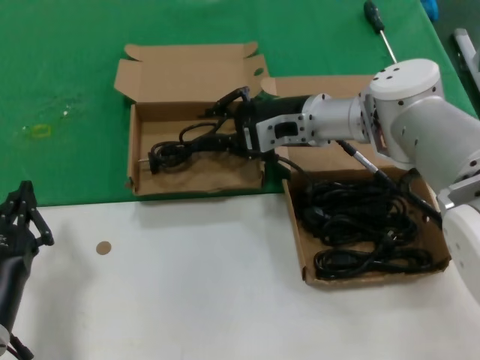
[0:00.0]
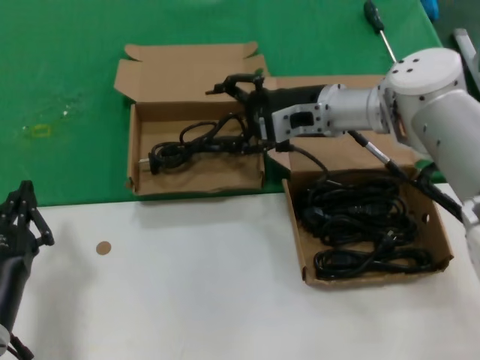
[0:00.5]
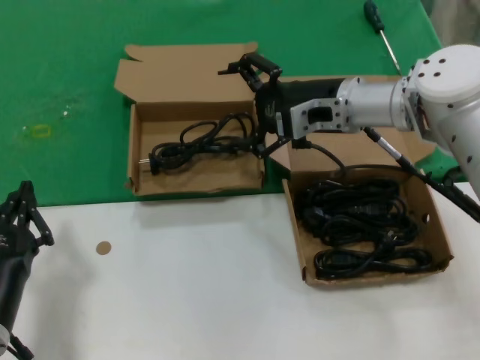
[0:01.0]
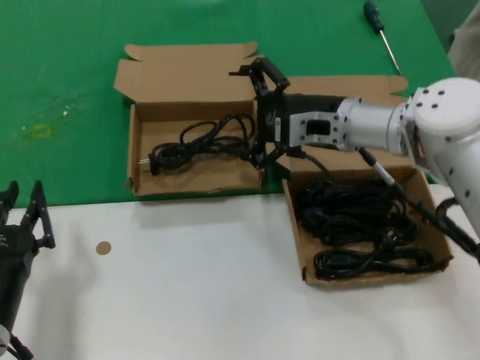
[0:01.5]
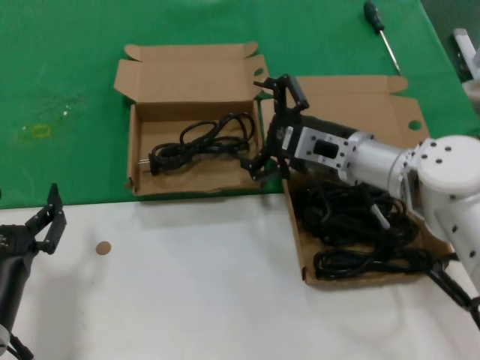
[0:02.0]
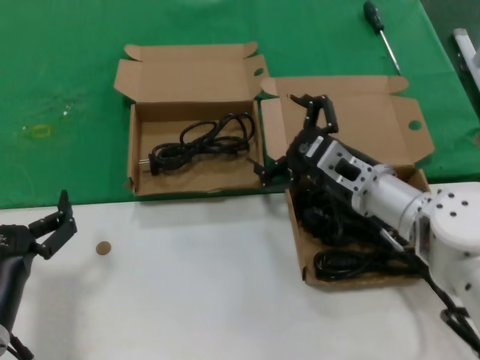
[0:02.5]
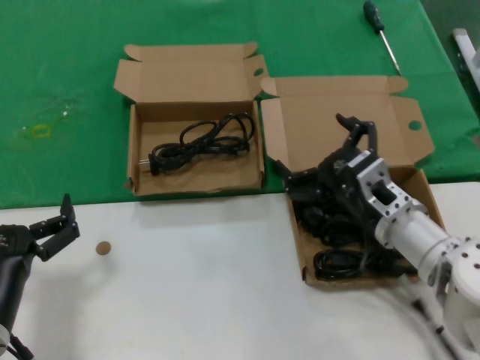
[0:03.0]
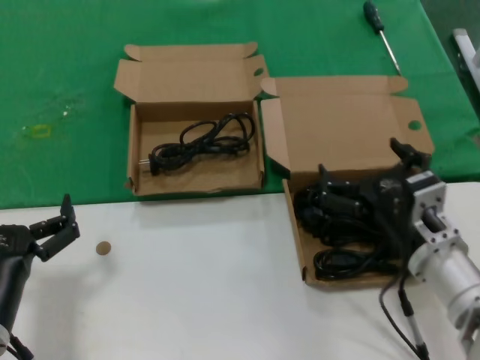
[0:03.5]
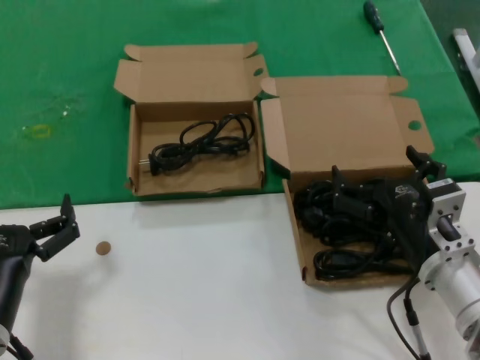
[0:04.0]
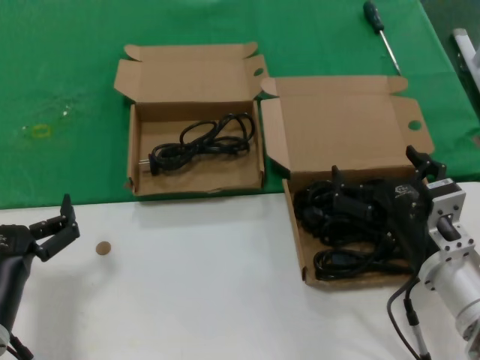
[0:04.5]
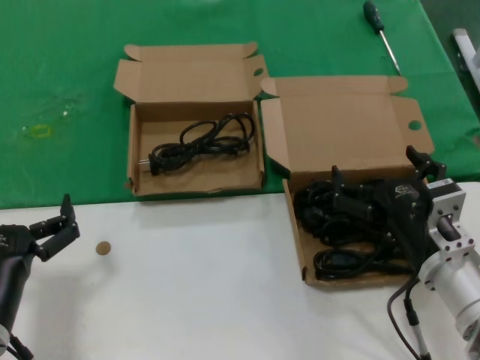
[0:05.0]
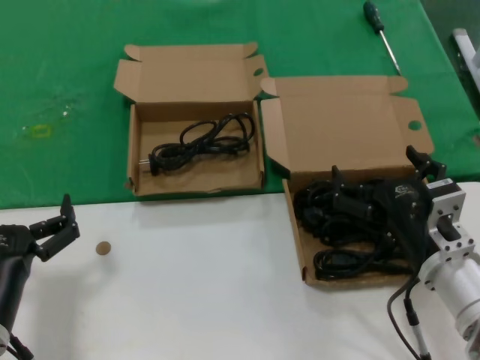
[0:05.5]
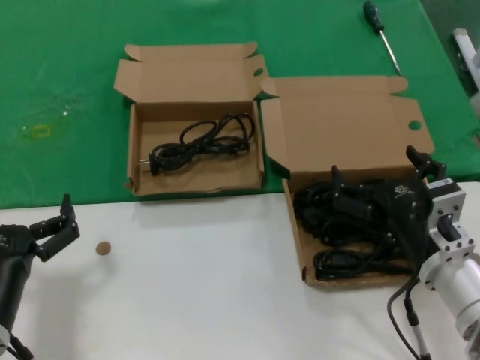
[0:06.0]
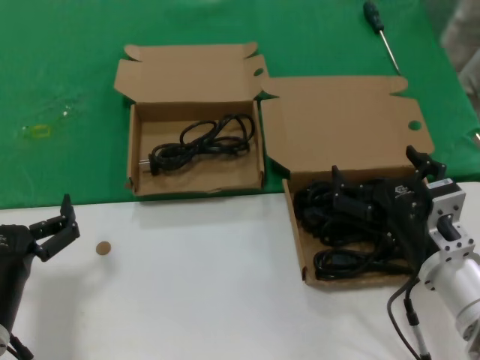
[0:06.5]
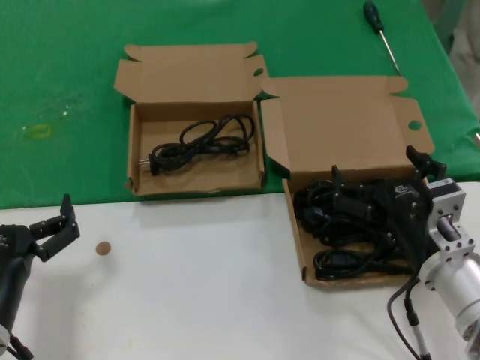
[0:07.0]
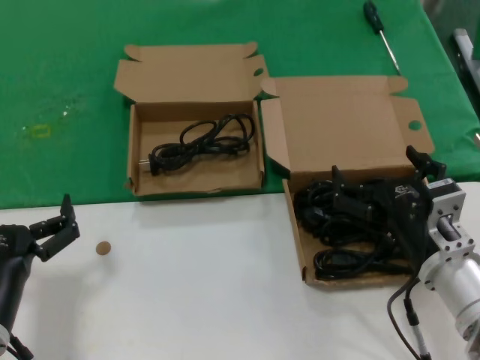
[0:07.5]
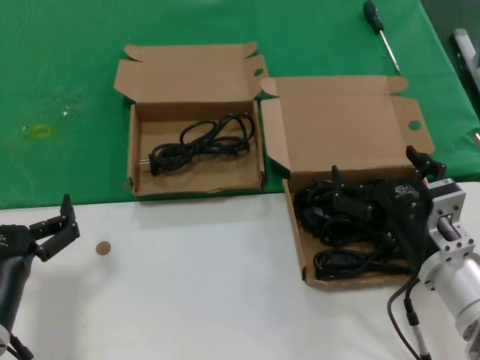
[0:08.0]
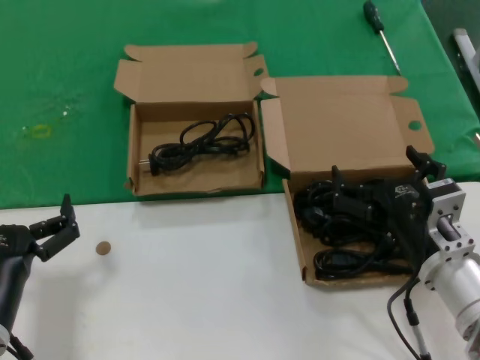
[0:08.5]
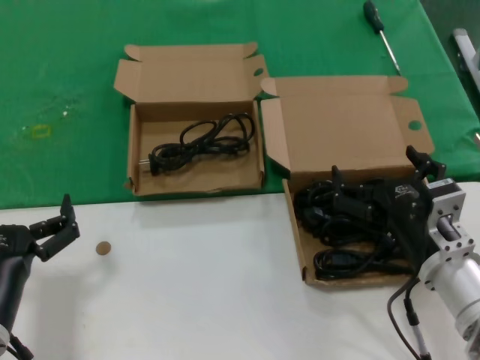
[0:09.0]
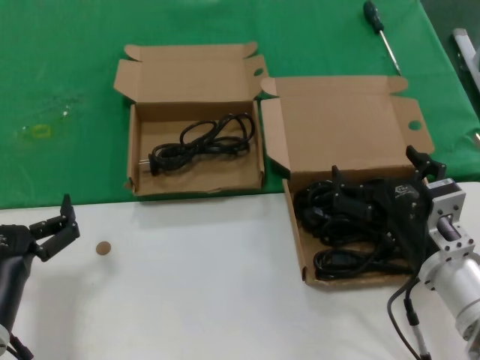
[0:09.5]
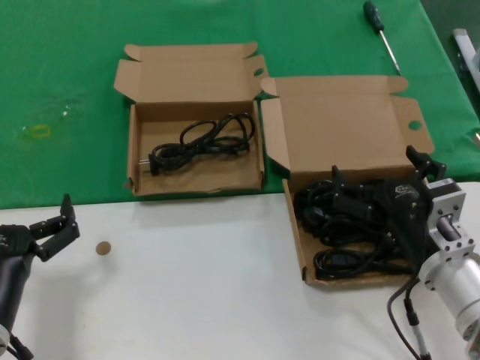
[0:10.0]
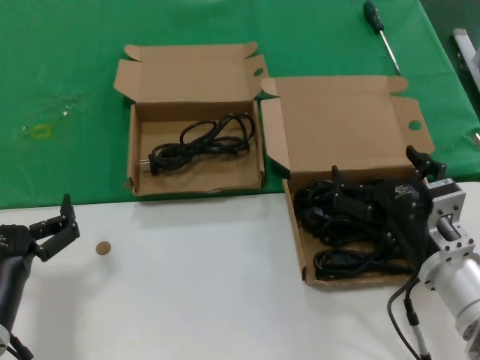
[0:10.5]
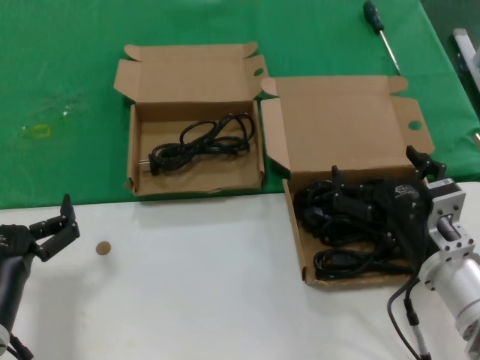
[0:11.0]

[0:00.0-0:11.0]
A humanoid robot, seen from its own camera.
Task of the whole recording: take the parts from the box containing them and put them into an empty box.
0:00.0 to 0:02.0: The right hand heads backward, covering roughly 5 cm.
0:02.0 to 0:03.5: The right hand is displaced backward and downward by about 15 cm.
0:03.5 to 0:05.5: The hands move only a little.
0:05.5 to 0:11.0: The two hands keep their place.

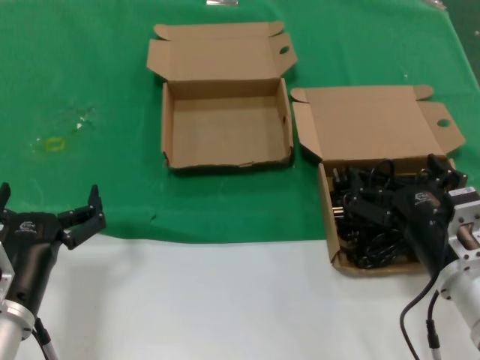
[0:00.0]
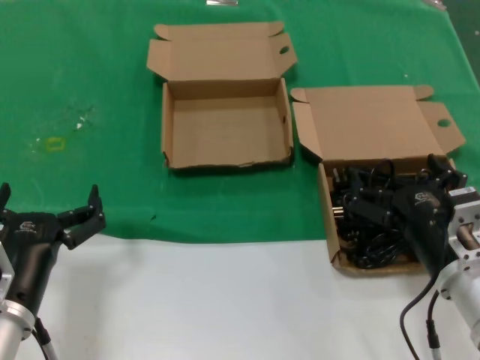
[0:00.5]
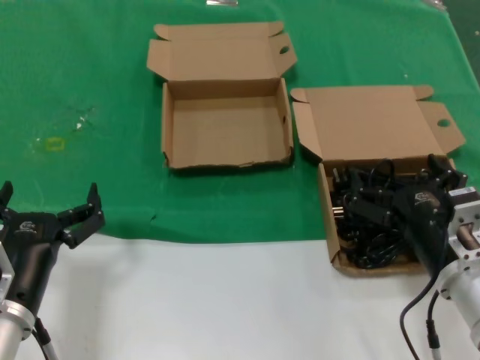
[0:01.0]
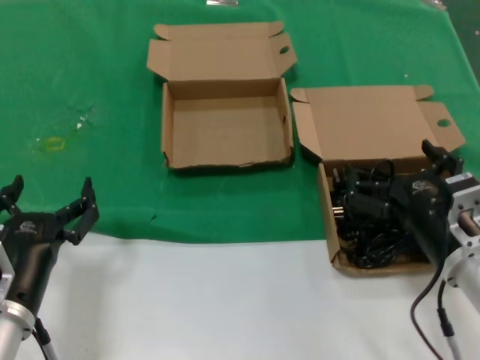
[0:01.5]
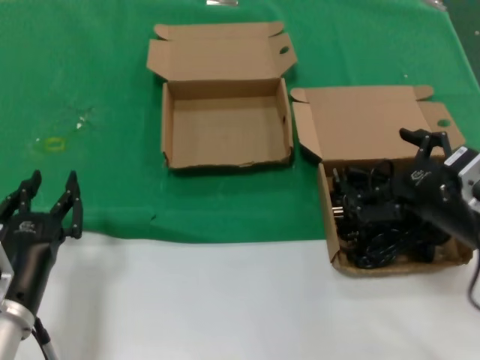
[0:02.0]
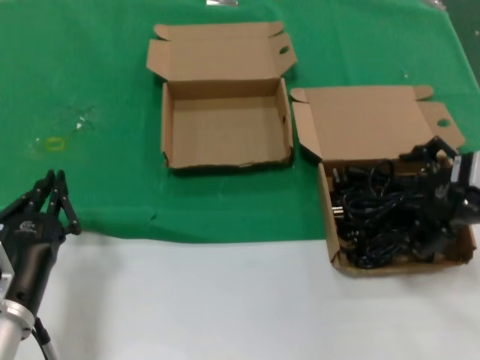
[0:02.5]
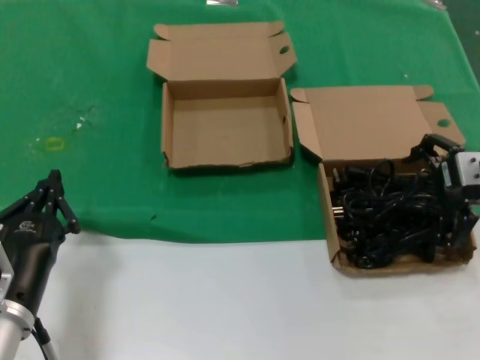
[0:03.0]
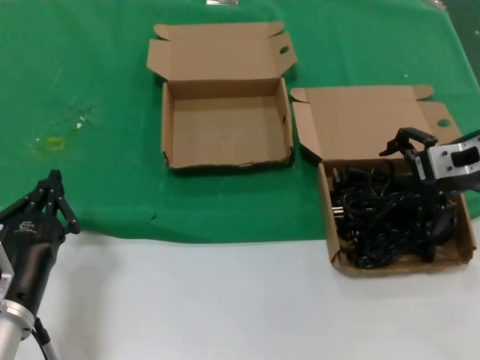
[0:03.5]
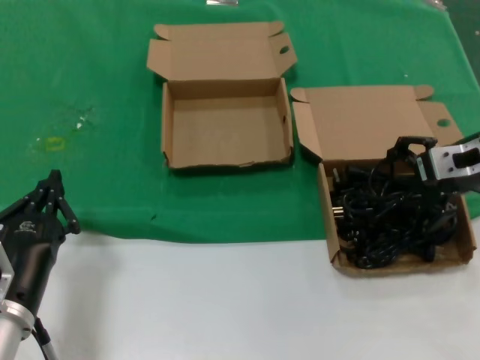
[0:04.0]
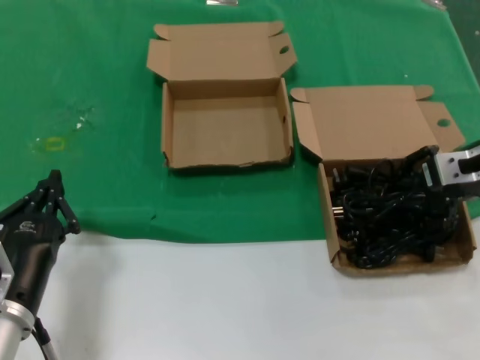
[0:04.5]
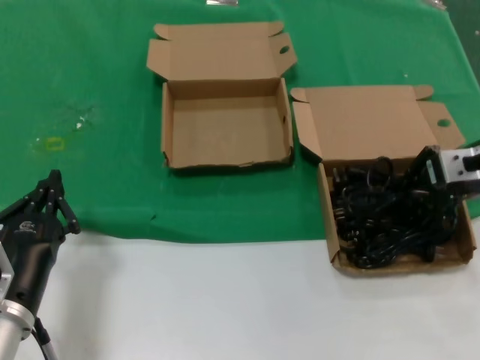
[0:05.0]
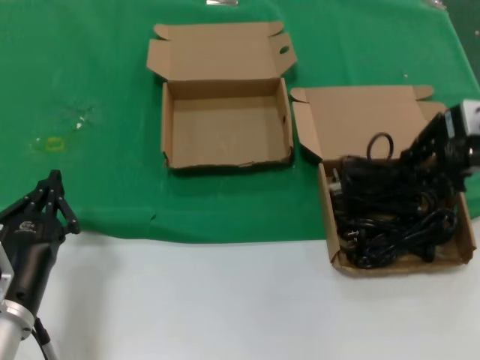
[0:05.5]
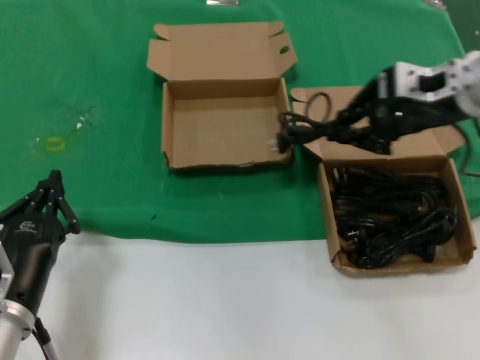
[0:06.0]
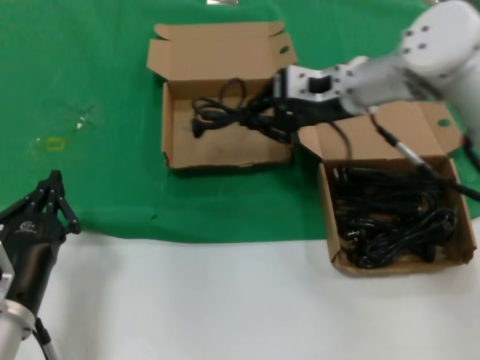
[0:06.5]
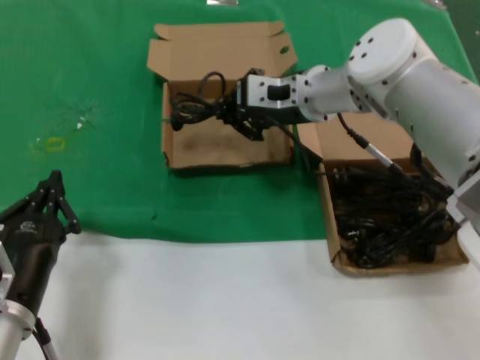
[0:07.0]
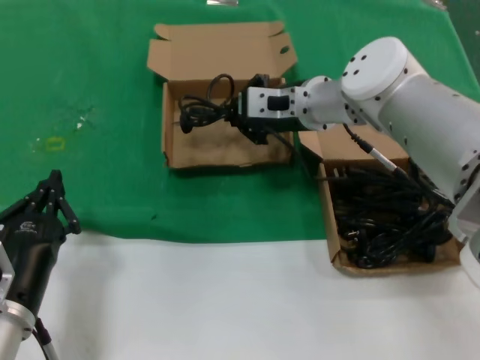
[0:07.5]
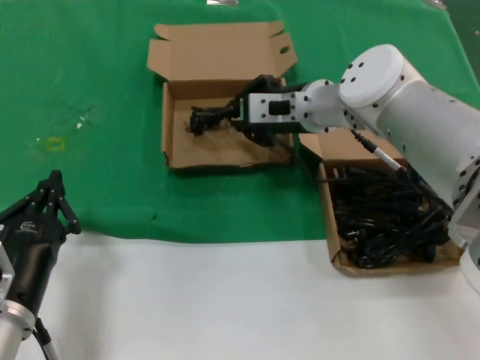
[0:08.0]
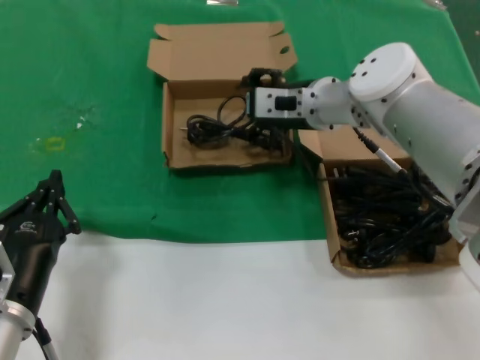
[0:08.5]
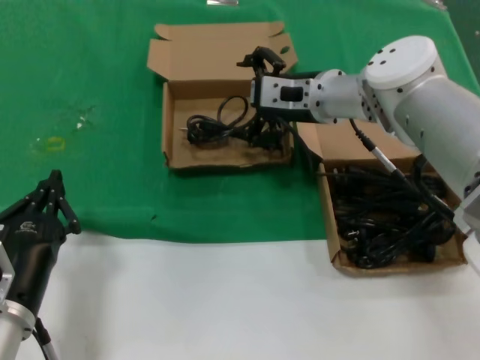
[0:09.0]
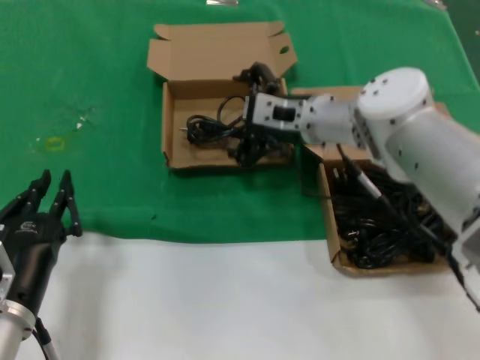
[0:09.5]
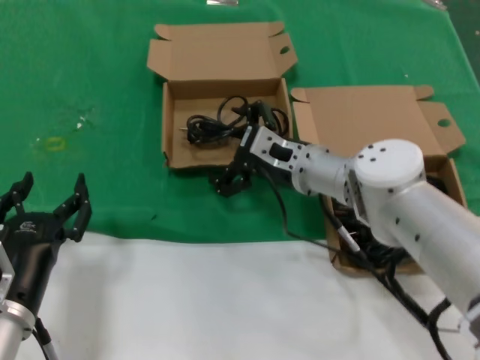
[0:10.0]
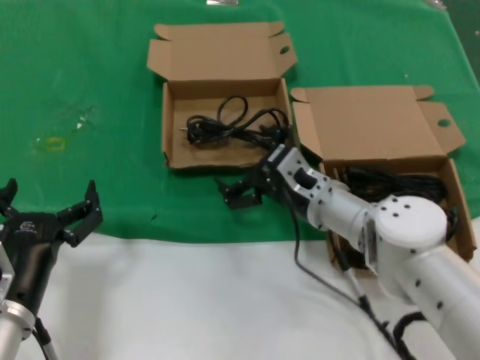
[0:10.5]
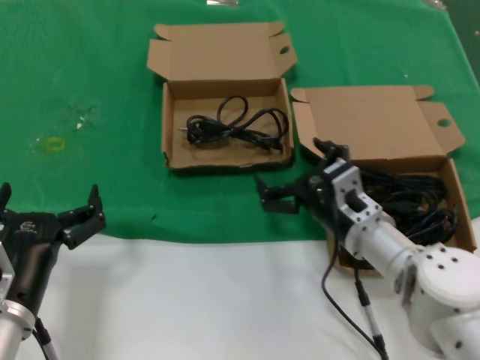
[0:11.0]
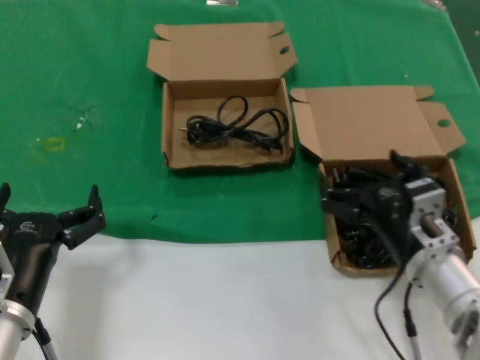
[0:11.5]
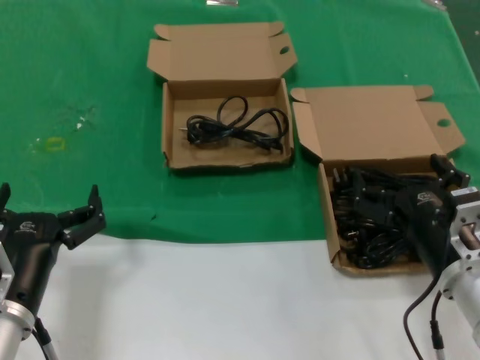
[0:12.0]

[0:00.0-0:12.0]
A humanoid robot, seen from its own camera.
Task of the whole recording: take the parts from the box containing them and put them into an empty box.
Step, 0:00.0 to 0:04.5: Grasp the data cable.
Step, 0:05.0 to 0:08.0: Place the data cable in the another box.
0:00.0 to 0:02.0: The right hand moves upward, about 5 cm.
0:02.0 to 0:04.0: The right hand is displaced forward and upward by some 15 cm.
0:04.0 to 0:06.0: The right hand shifts some 10 cm upward.
0:06.0 to 0:08.0: The right hand is displaced to the left, downward and forward by some 20 cm.
0:08.0 to 0:10.0: The right hand travels downward by roughly 10 cm.
0:10.0 to 0:12.0: The right hand shifts about 25 cm backward and to the right.

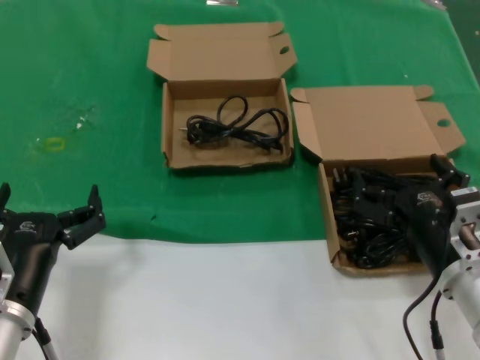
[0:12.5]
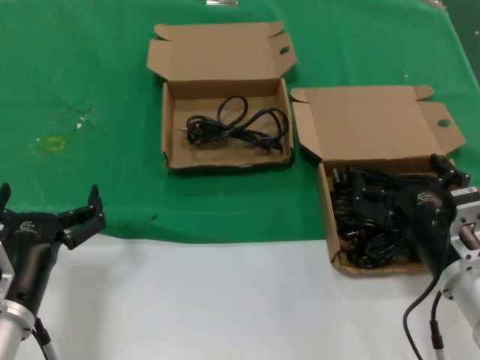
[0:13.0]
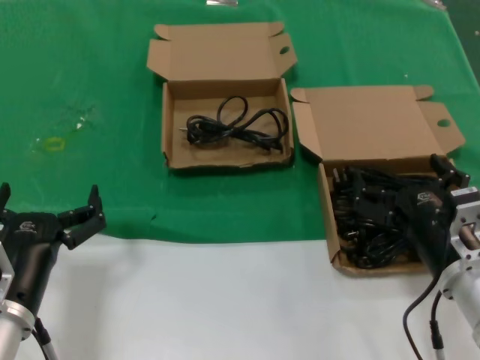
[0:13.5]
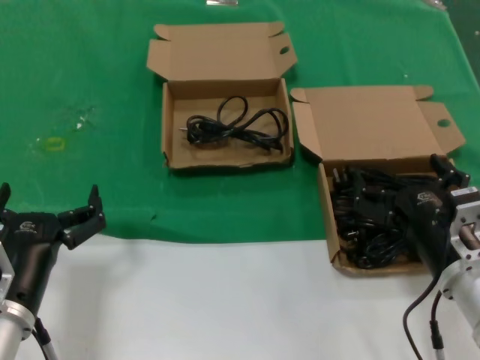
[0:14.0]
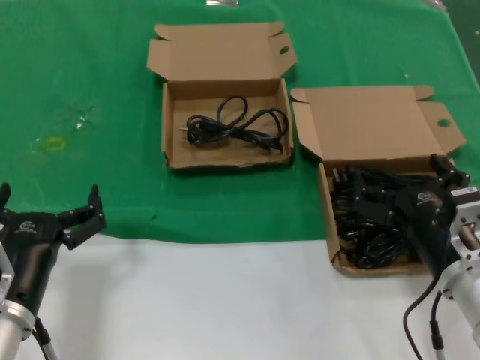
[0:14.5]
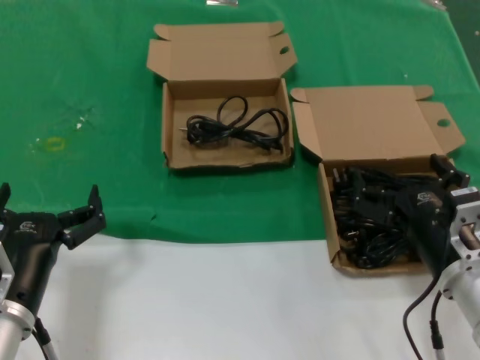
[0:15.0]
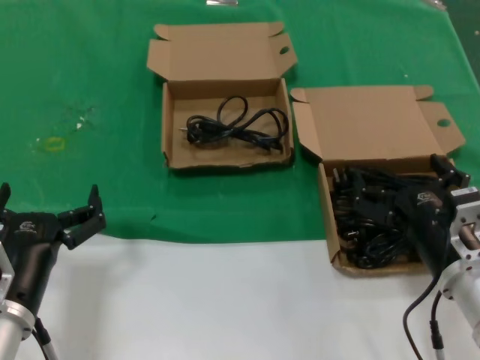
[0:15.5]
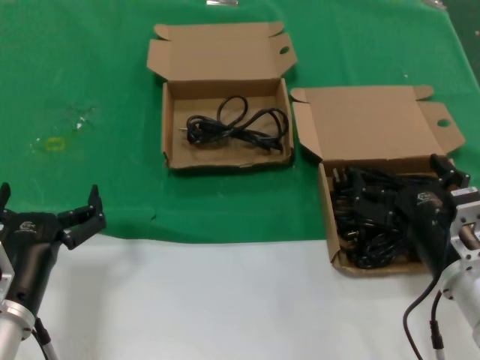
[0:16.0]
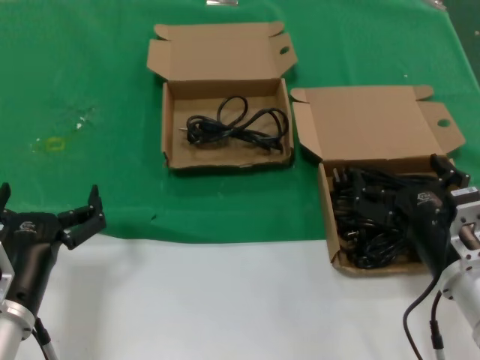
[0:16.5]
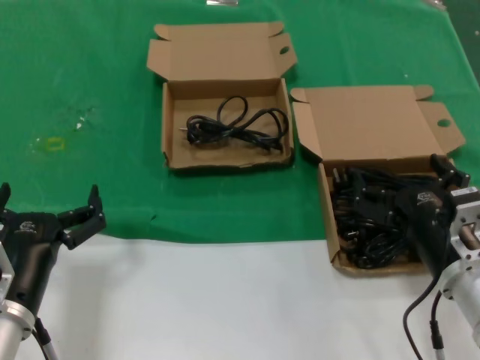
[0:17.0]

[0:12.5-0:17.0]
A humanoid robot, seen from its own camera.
Task of the whole recording: take the parts from the box containing them and put them into an empty box.
0:12.5 to 0:17.0: Both hands stay put.
